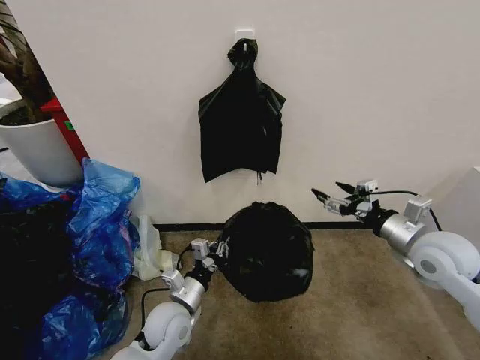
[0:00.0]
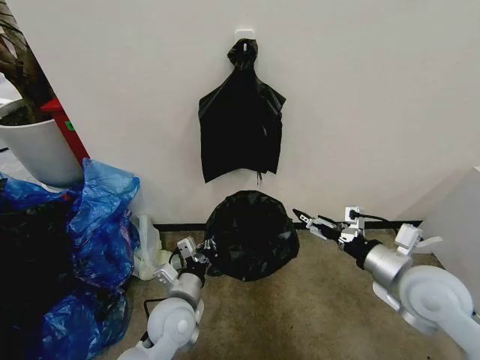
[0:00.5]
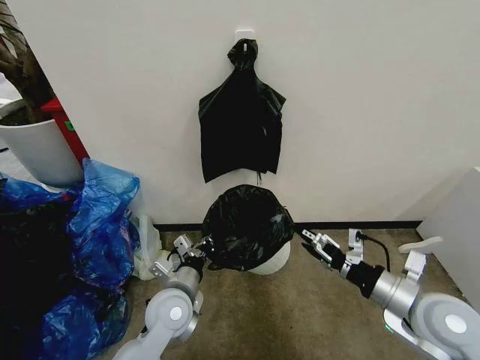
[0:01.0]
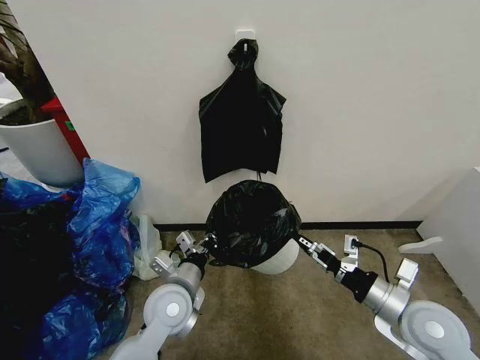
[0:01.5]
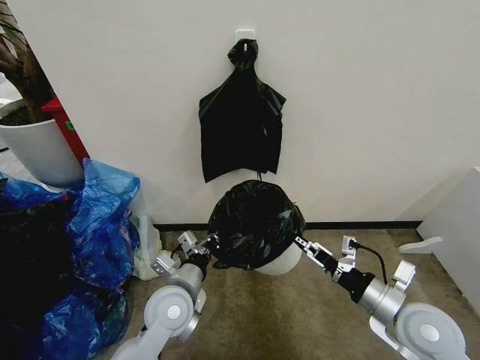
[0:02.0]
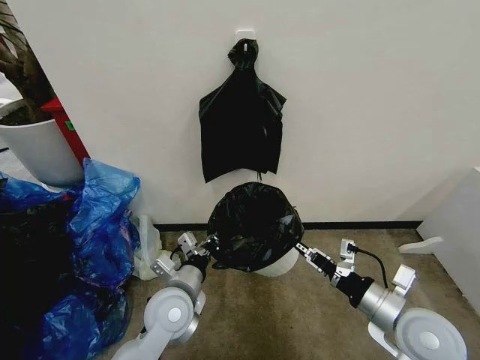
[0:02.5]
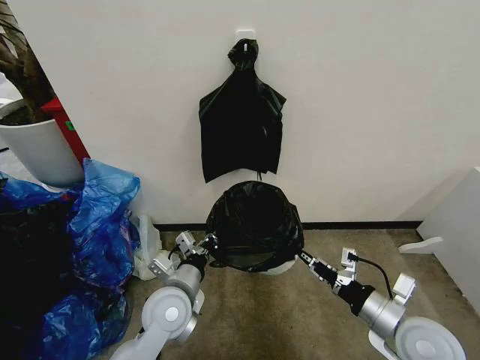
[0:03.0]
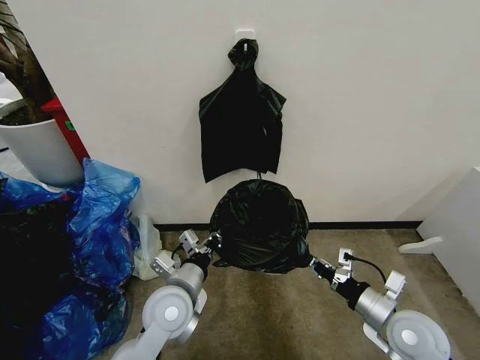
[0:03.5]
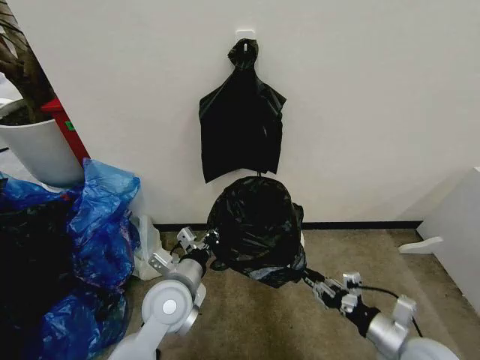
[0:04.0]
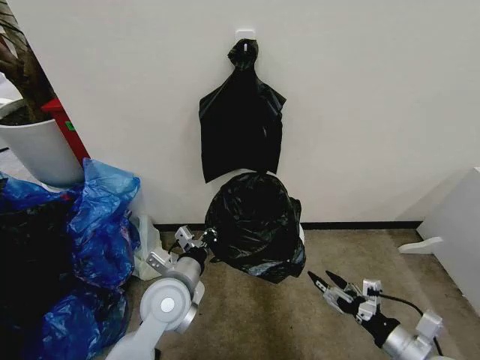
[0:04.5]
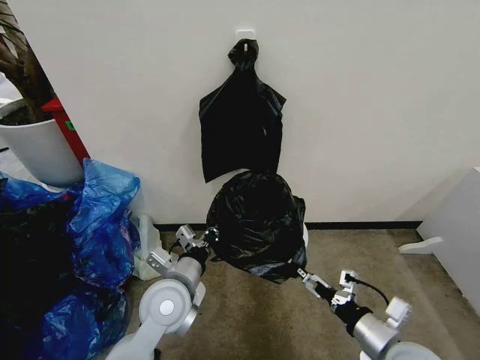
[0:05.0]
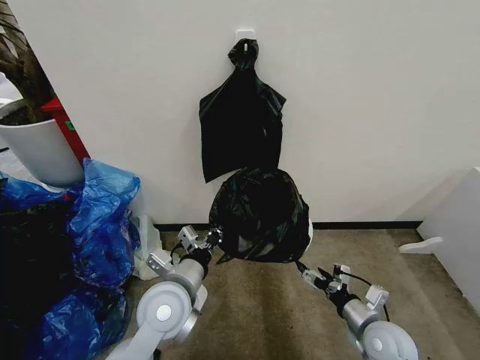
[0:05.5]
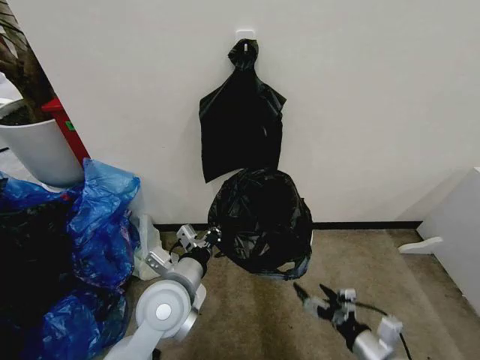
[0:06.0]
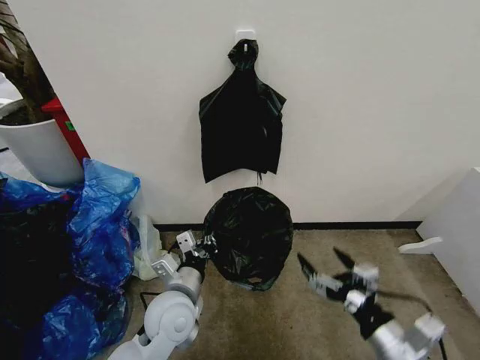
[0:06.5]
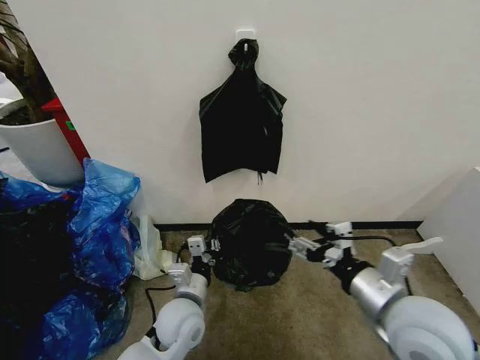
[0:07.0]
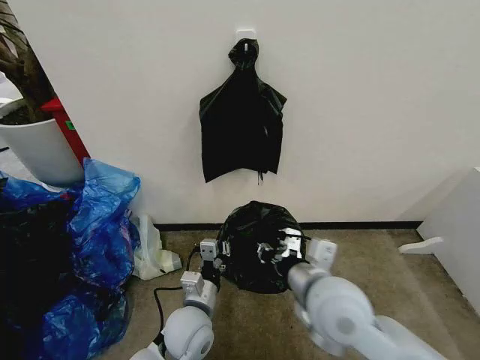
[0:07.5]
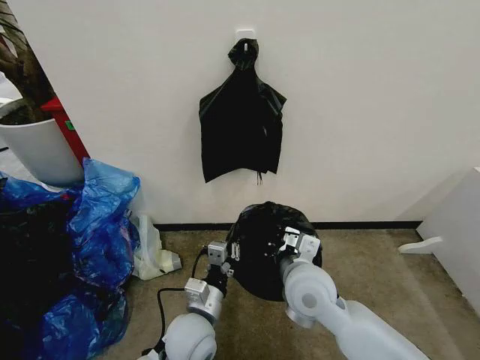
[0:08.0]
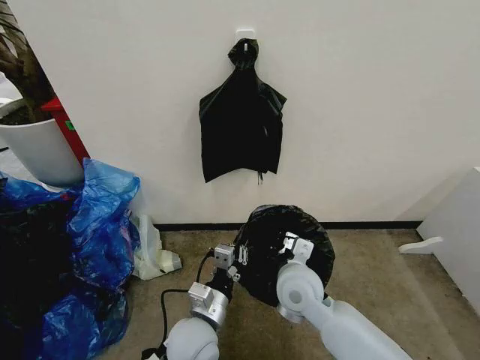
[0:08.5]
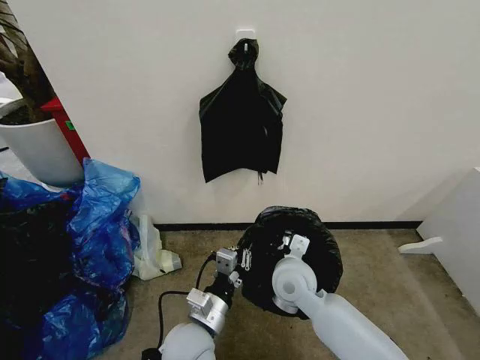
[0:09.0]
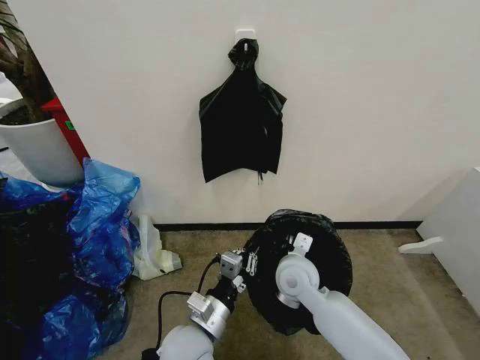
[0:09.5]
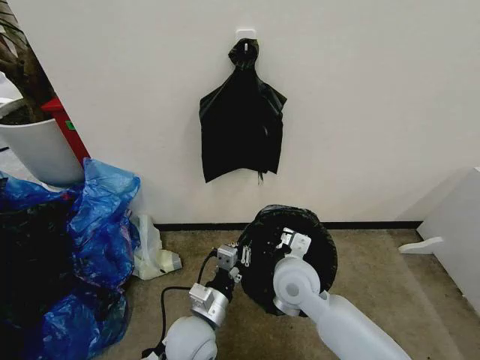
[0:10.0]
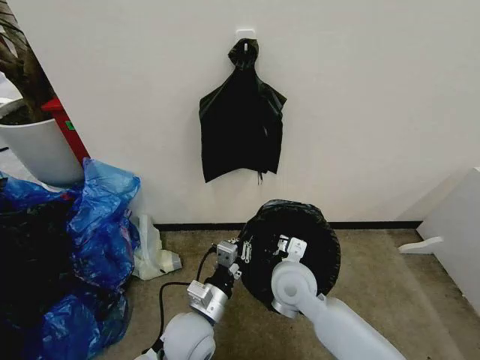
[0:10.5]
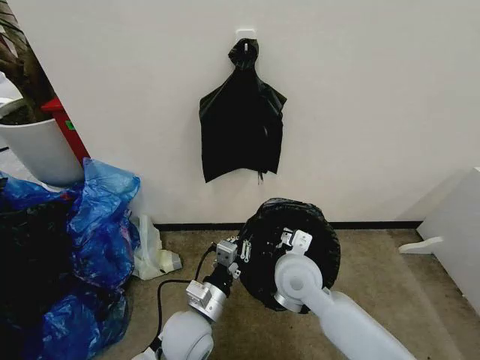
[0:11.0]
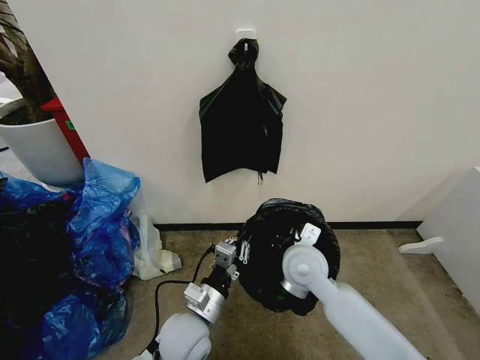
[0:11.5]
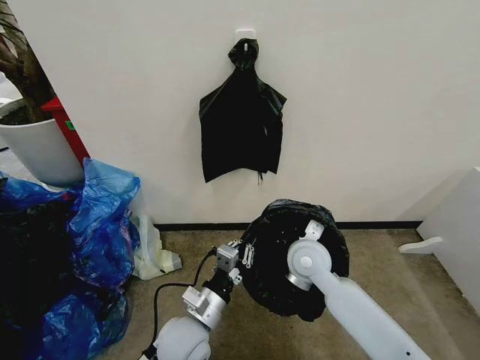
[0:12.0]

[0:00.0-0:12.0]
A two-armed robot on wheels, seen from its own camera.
Task of the whole recording: Place the garbage bag over the trash bin.
0:00.0 to 0:02.0: The left gripper is displaced upward by some 5 cm. The right gripper heads backward, to the left and downward, covering about 15 cm.
0:02.0 to 0:04.0: The right gripper is displaced downward by about 10 cm, and closes.
0:04.0 to 0:06.0: The right gripper ends up roughly 5 cm from where it was, and opens up.
0:06.0 to 0:08.0: The left gripper travels downward by some 10 cm. Meanwhile the right gripper goes approximately 25 cm to the left, upward and forward, and closes.
0:10.0 to 0:12.0: The right gripper moves roughly 5 cm.

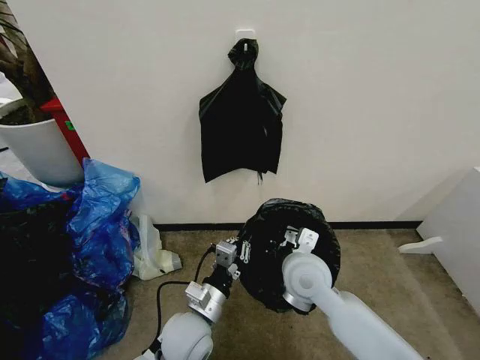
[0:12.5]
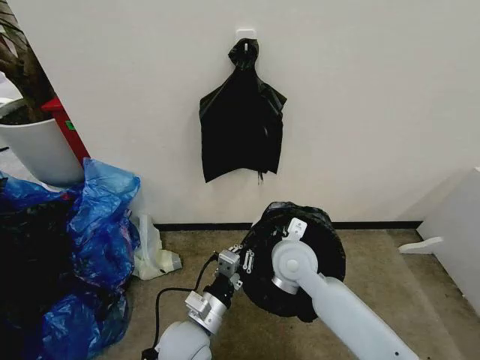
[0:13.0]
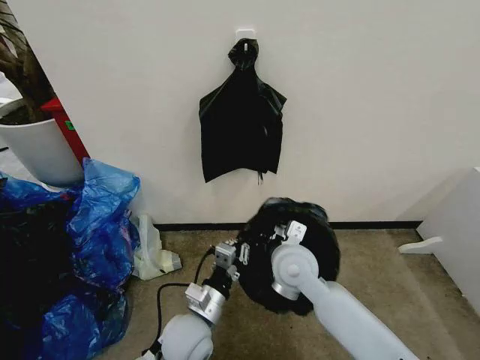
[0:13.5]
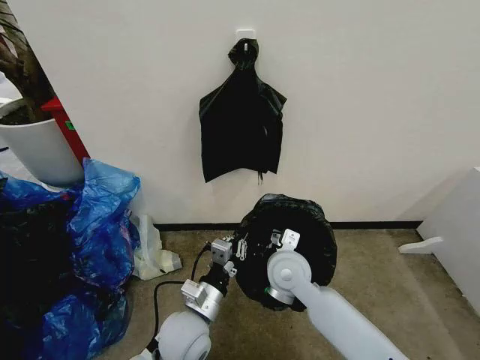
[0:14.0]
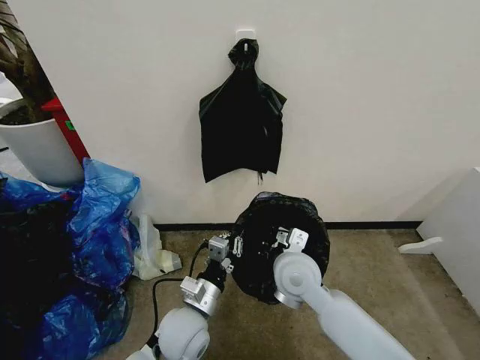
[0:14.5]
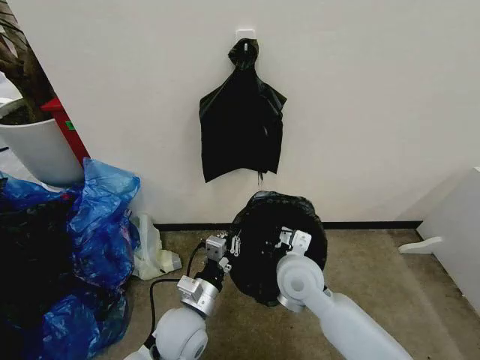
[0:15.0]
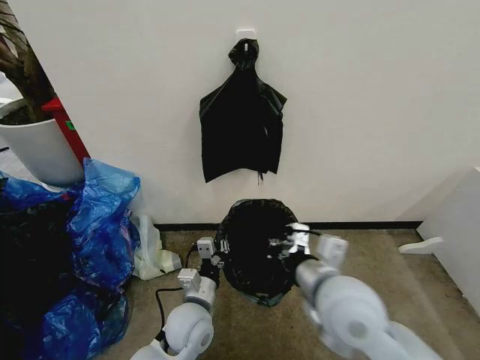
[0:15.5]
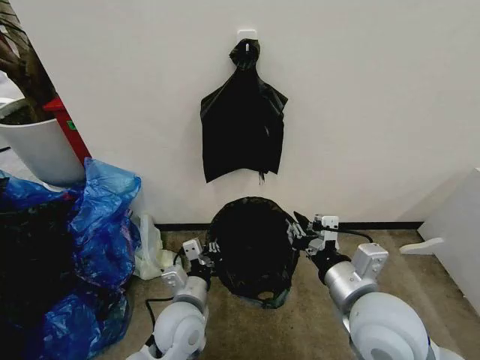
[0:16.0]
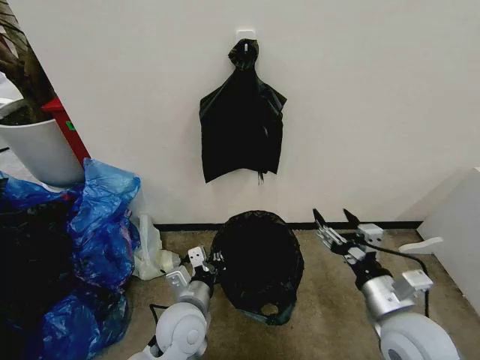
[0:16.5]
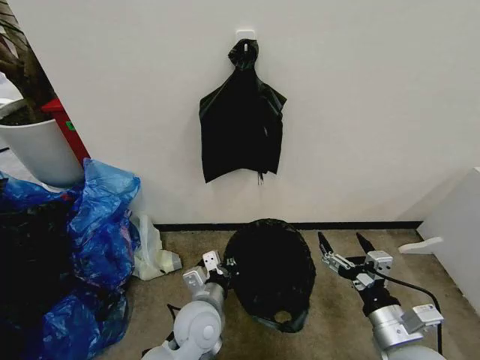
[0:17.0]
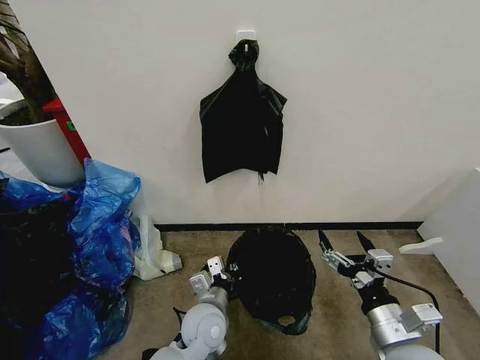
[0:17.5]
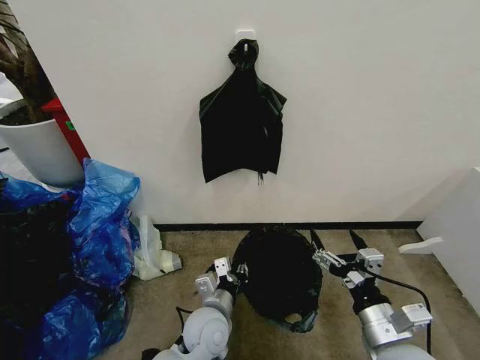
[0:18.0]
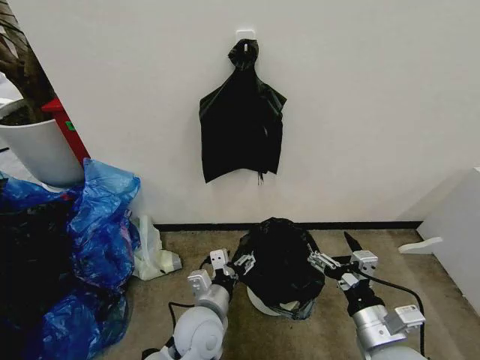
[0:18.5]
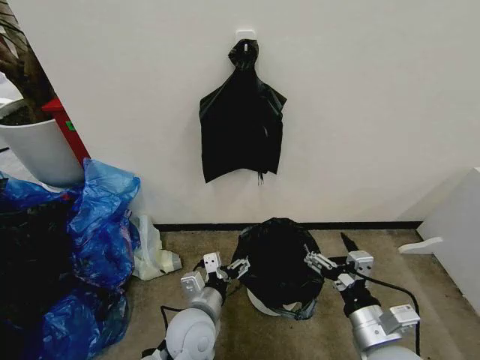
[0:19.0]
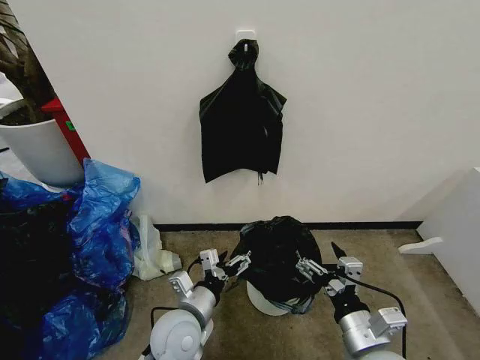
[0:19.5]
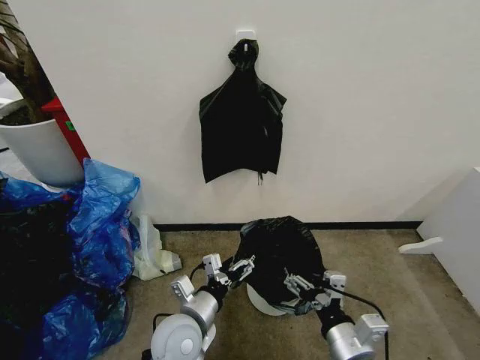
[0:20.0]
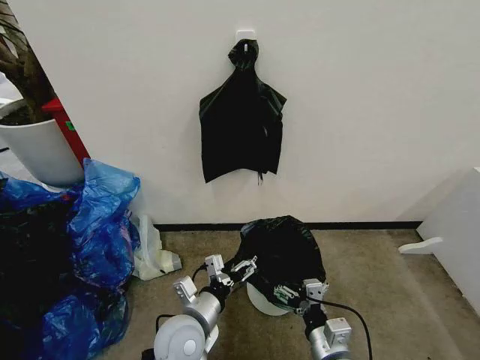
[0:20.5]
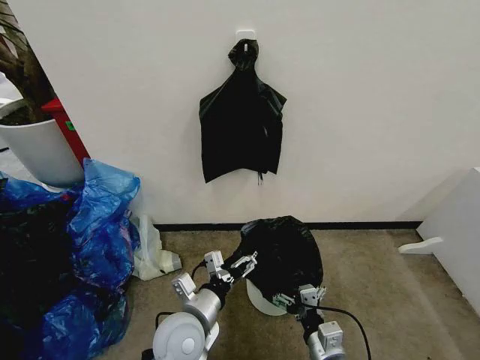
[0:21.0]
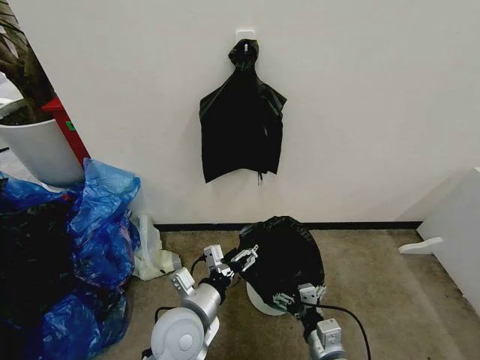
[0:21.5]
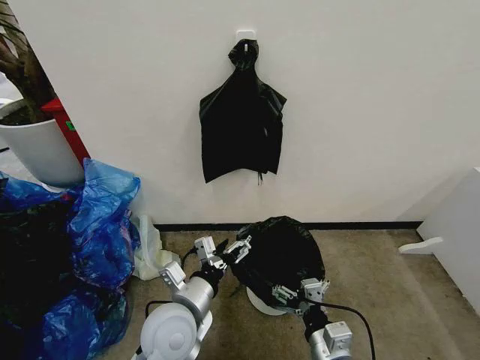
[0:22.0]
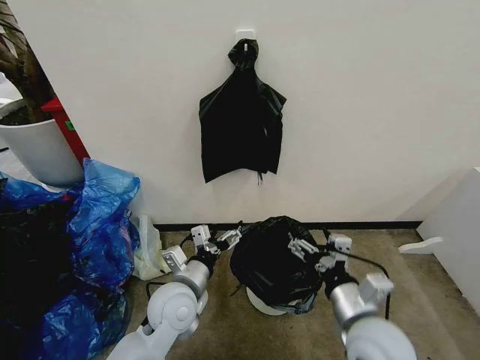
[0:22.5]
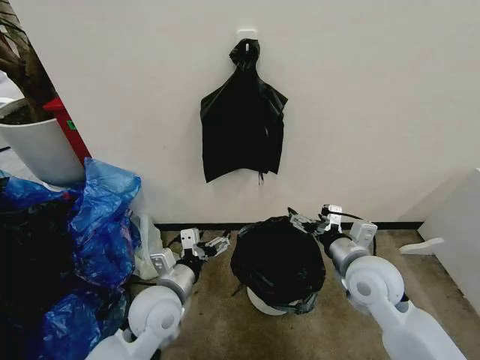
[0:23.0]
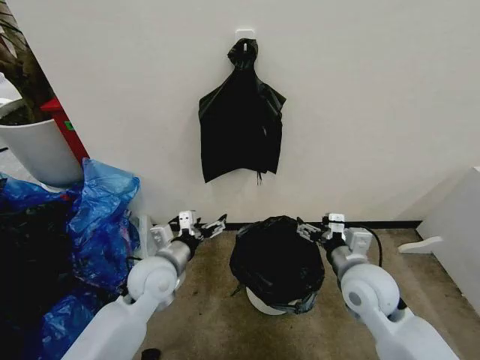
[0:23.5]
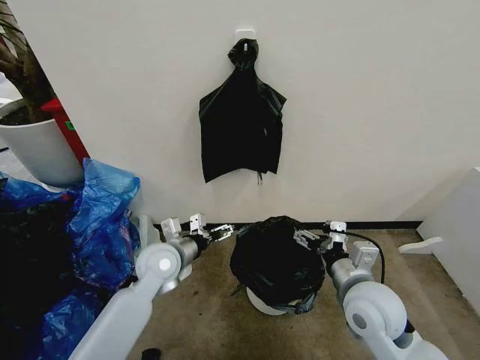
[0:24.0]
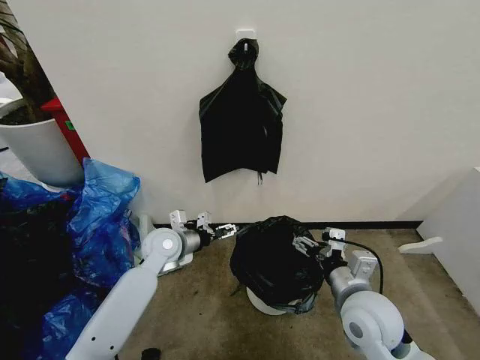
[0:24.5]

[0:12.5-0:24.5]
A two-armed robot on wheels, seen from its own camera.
Task of the whole recording: Place the garbage bag over the trash bin.
0:12.5 to 0:14.5: There are only small adjustments of the grippers.
0:14.5 to 0:16.5: The right gripper shifts roughly 20 cm to the right and backward, and opens its fingers.
0:16.5 to 0:18.5: The left gripper opens. The right gripper moves approximately 5 cm.
0:18.5 to 0:20.5: The right gripper heads downward and to the left, covering approximately 10 cm.
0:20.5 to 0:22.5: The left gripper travels forward by roughly 5 cm. Meanwhile the right gripper is displaced upward by approximately 10 cm.
0:22.5 to 0:24.5: The left gripper heads forward and to the left, covering roughly 15 cm.

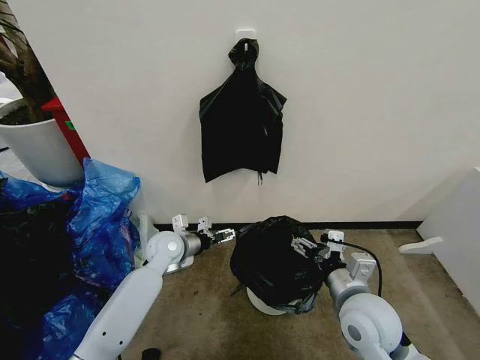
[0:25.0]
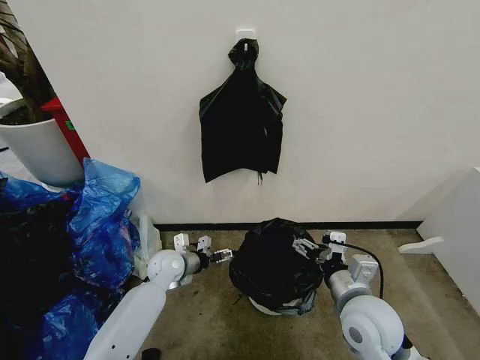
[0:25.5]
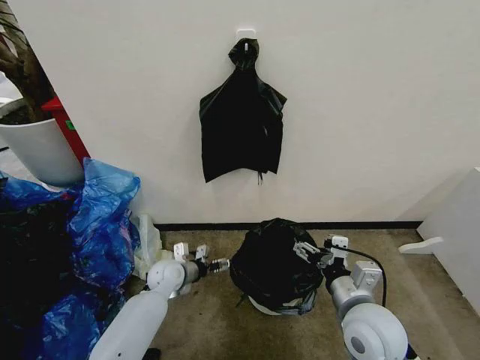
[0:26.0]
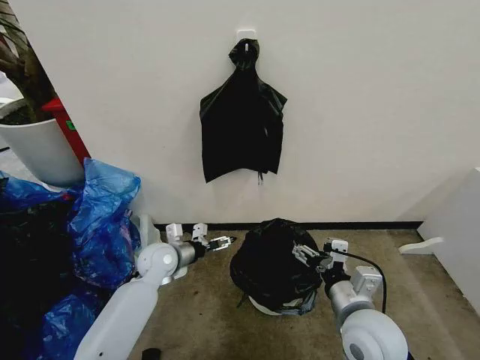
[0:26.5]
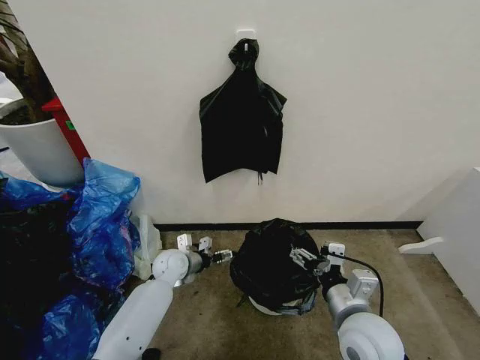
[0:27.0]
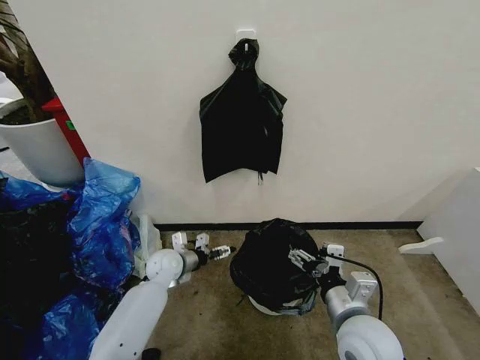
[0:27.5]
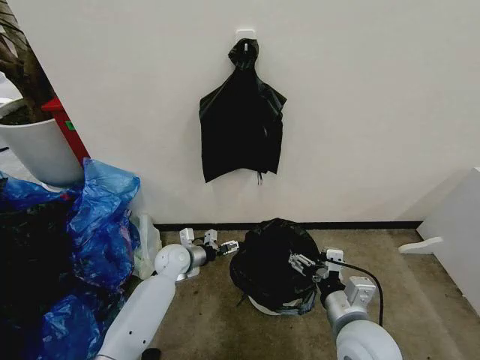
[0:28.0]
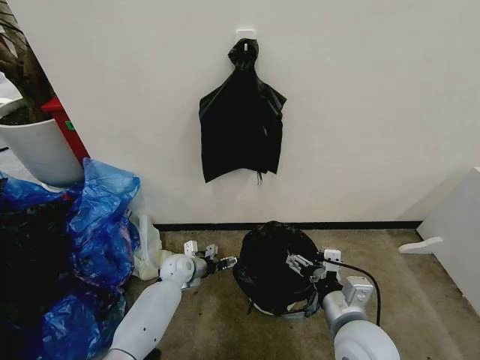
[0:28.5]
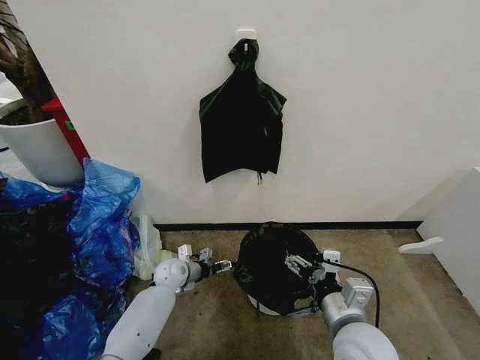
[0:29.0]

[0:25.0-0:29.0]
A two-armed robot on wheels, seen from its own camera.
Task of the whole recording: Place the garbage bag over the trash bin.
0:25.0 to 0:27.0: The left gripper swings up and down, roughly 10 cm each way, with 2 reversals.
0:27.0 to 0:29.0: The left gripper is displaced downward by about 5 cm.
